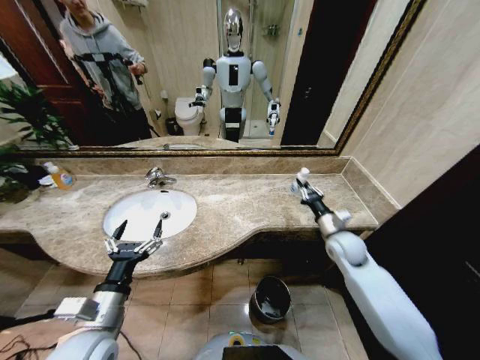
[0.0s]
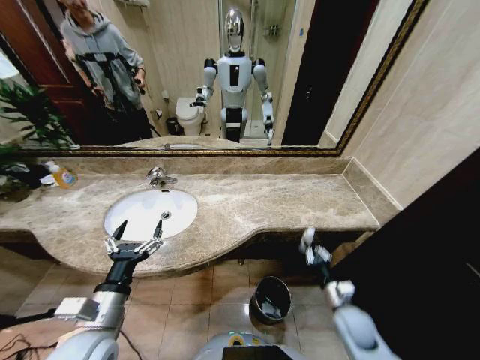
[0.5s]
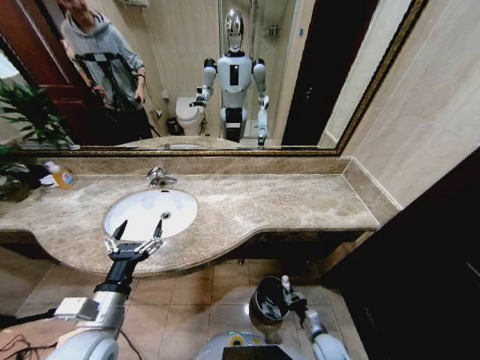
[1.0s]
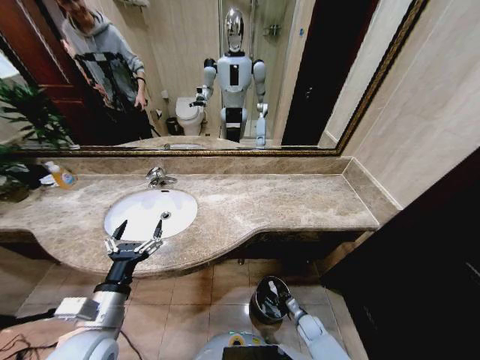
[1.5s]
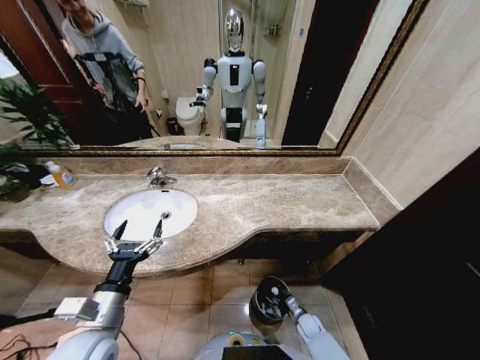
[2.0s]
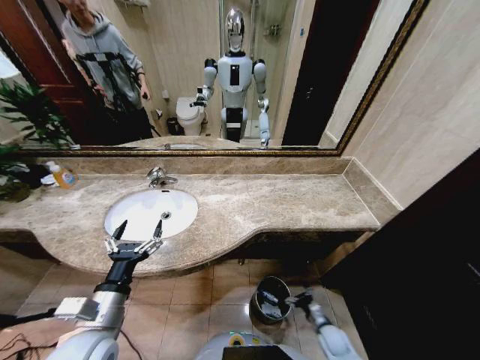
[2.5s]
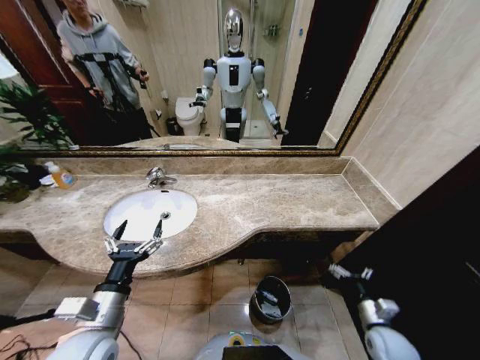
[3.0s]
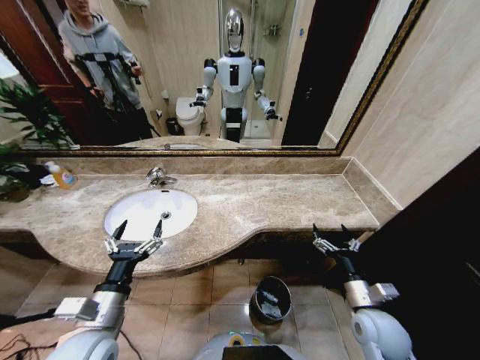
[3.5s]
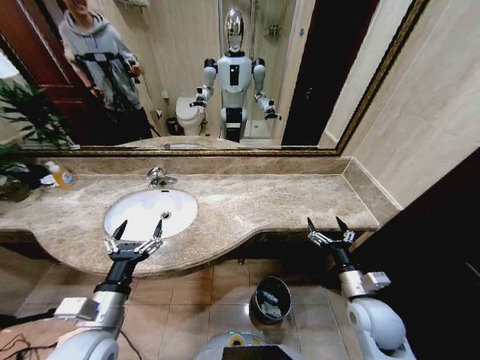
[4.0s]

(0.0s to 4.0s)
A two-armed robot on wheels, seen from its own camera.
Task of the whole recording: Pick up the trash from the sink and place it in the trash bin.
0.0s - 2.0s: The right gripper moves downward, approximately 35 cm.
2.0s - 4.0s: The right gripper moves upward, about 35 cm, and opens up.
